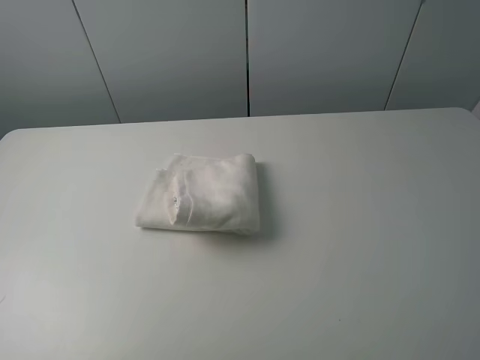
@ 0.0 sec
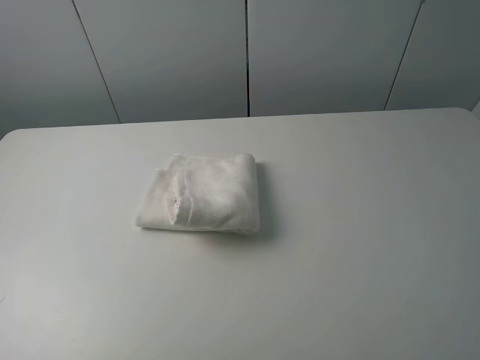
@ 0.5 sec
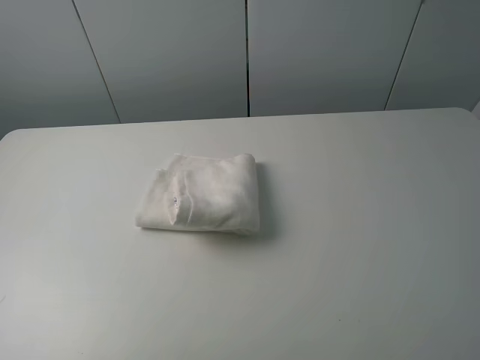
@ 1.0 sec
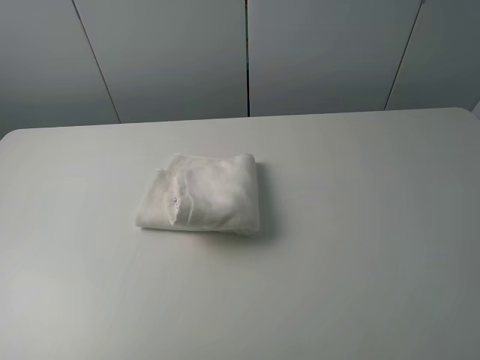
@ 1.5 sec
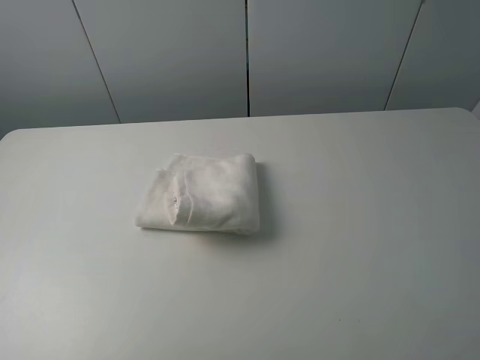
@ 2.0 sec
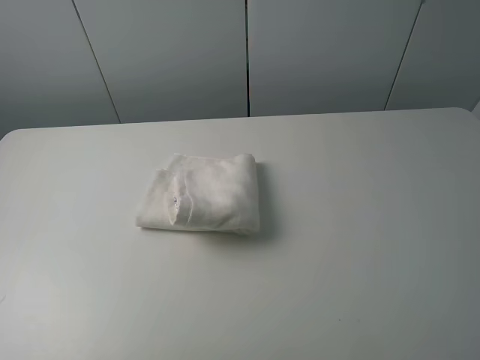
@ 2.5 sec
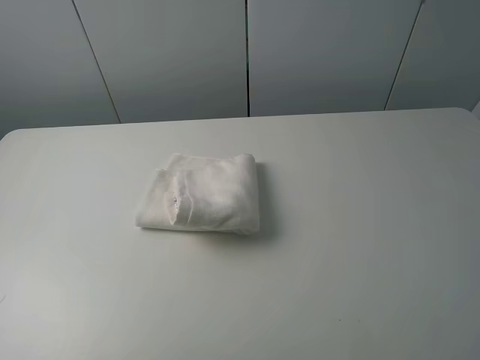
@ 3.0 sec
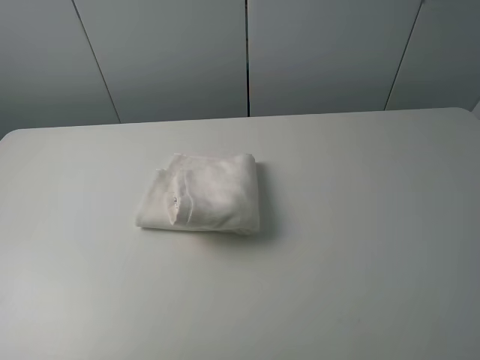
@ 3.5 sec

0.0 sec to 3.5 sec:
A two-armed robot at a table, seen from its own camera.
Task of the whole recording: fold the towels on the table.
2.0 sec to 3.5 sec: Both grippers stay put.
